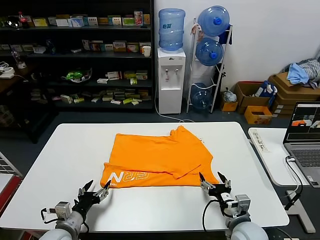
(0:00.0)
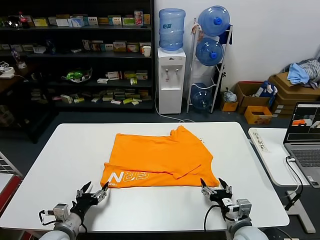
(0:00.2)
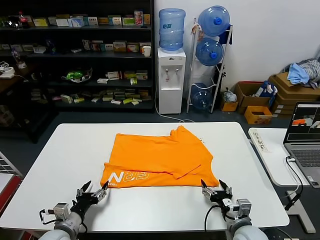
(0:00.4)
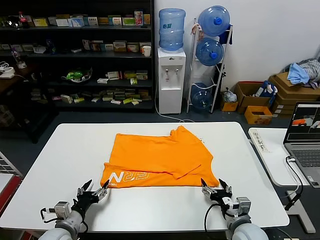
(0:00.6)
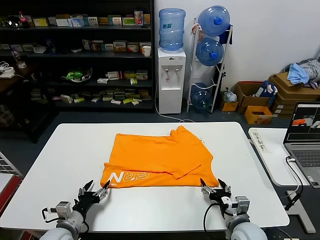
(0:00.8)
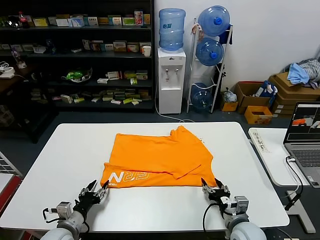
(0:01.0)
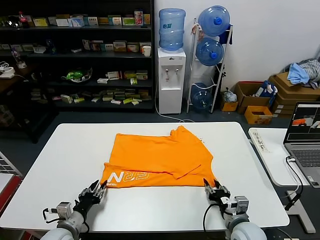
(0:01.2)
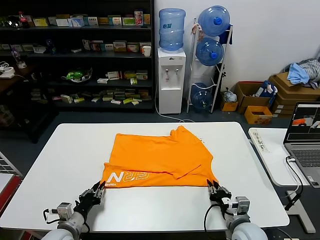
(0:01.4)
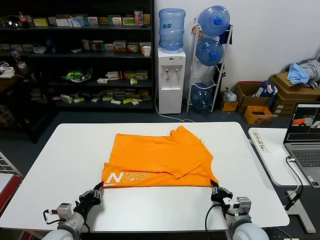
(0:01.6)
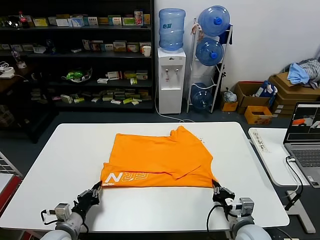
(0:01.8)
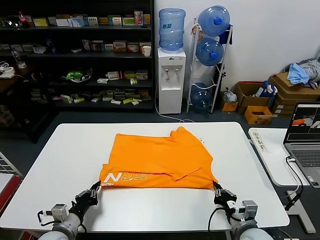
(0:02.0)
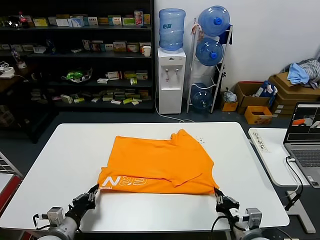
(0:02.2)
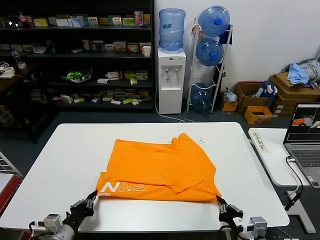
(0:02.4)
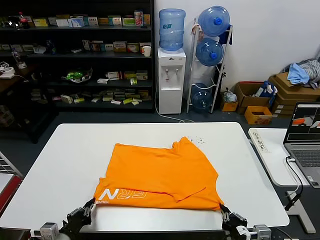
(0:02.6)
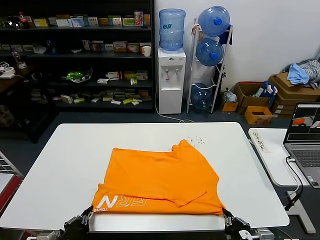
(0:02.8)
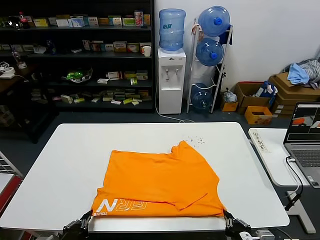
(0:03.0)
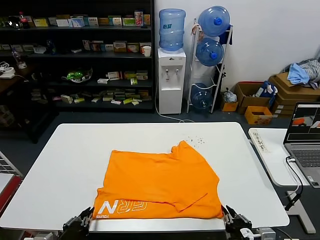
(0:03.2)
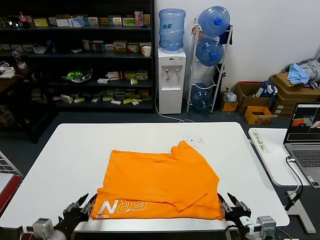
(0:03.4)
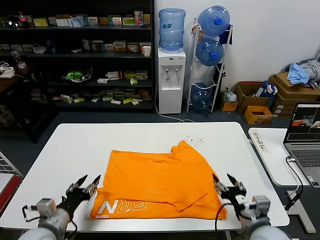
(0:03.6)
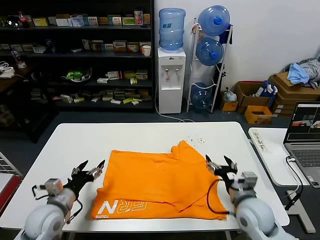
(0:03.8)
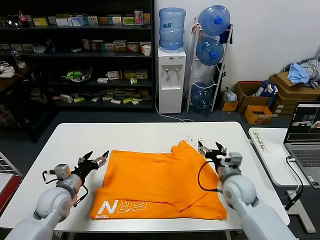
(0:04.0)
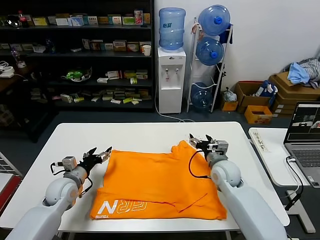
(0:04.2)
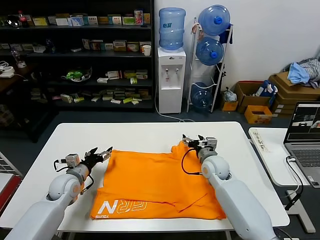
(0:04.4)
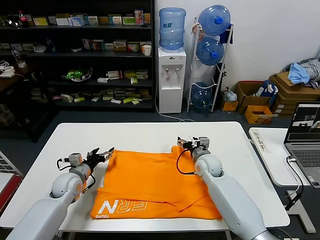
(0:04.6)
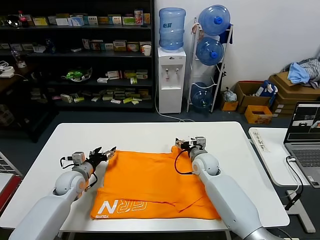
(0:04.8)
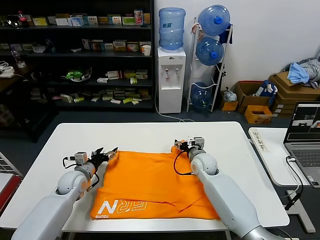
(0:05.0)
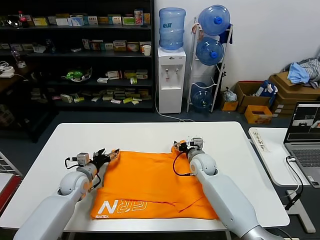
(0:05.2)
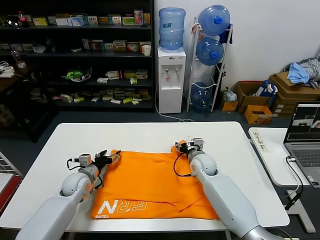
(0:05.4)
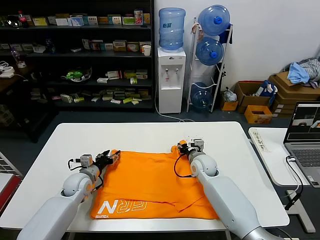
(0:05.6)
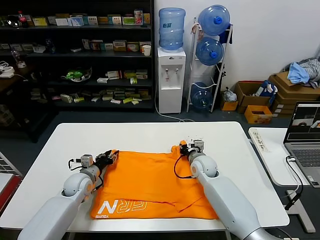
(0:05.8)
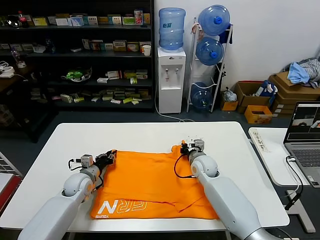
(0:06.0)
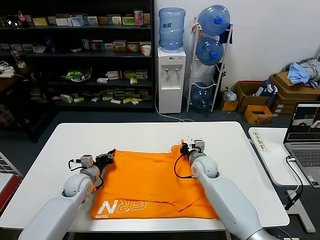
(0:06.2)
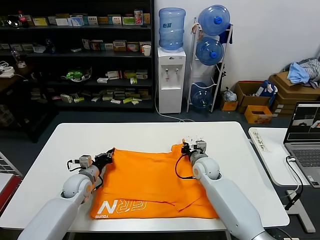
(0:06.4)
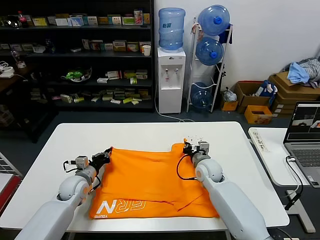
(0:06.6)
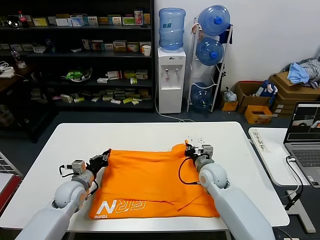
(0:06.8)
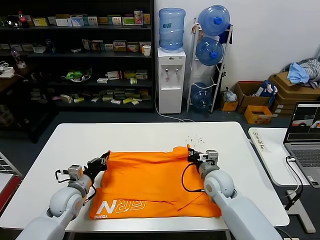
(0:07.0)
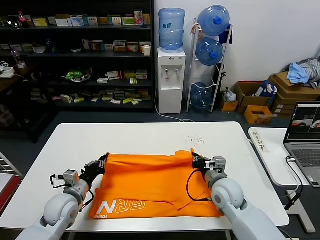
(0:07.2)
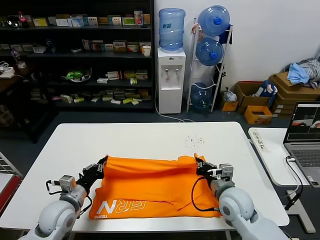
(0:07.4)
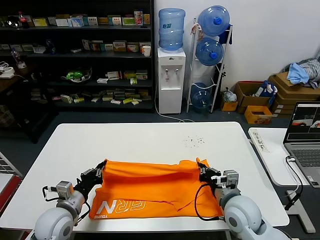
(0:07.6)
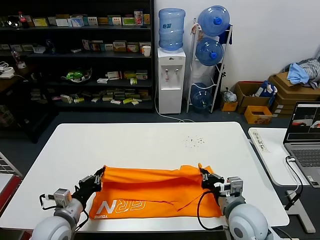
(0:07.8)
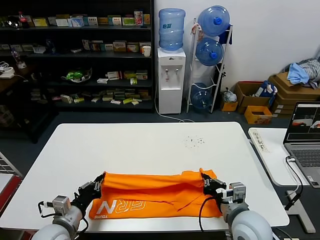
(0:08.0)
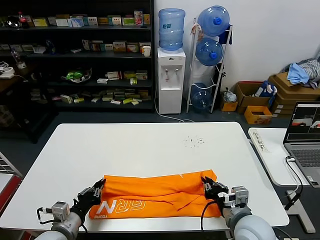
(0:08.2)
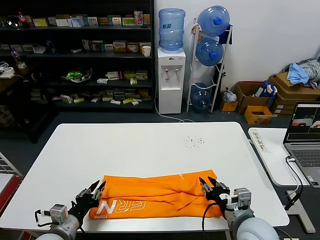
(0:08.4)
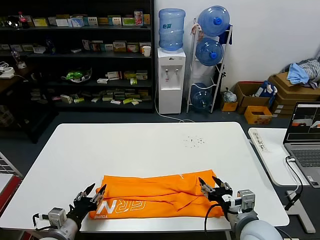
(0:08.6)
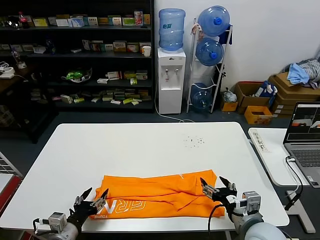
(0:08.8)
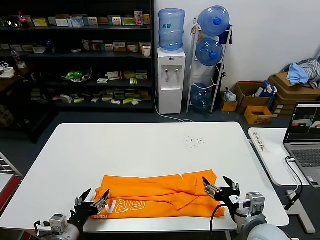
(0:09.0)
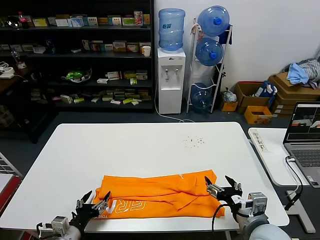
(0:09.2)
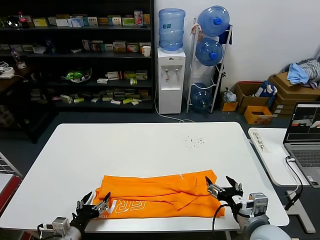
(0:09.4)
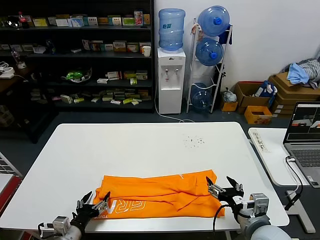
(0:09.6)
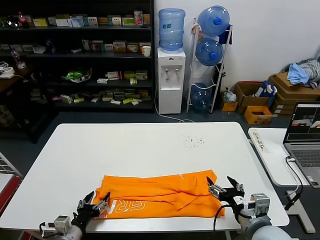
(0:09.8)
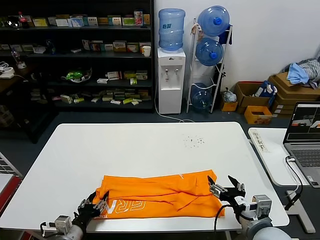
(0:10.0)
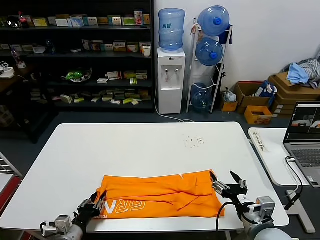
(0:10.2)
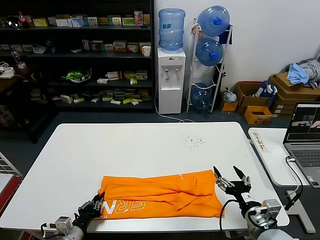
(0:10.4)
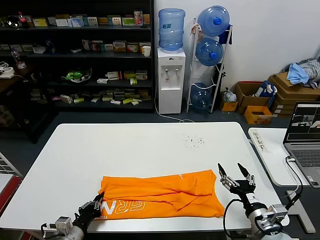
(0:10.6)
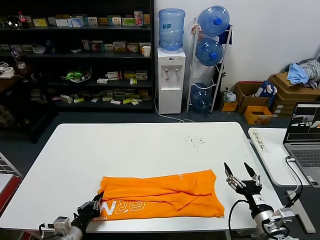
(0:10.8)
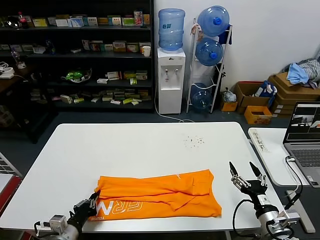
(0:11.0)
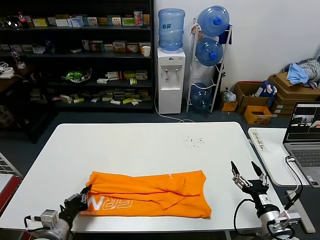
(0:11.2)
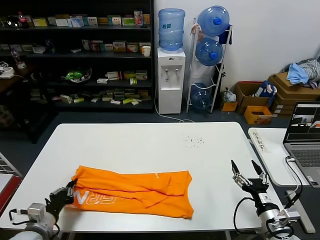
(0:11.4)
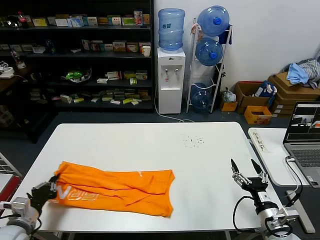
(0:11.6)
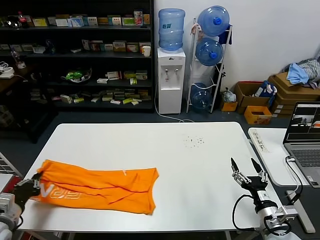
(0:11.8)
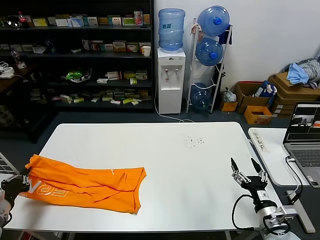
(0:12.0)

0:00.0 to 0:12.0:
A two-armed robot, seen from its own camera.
Task of the whole recording: fold and organize the clothes.
Step, 0:00.0 to 0:03.2: Drag the clothes downward with both gripper.
Step, 0:03.4 to 0:06.4: use both grippers simultaneously to clamp the upper edge of the clothing fabric.
Step, 0:06.6 to 0:08.2: use both grippers to drag the upper edge of the fabric backward and fold it over the lower edge.
Step, 0:08.6 to 0:10.8: use the left gripper to clamp the left edge of the fabric.
0:00.0 to 0:01.6: The right gripper closes its fingers; the left gripper closes its fingers.
0:01.6 to 0:03.0: The two grippers go approximately 10 cm backward and upward.
0:03.0 to 0:04.4: The grippers both shift forward by roughly 30 cm. The left gripper opens; the right gripper opens up.
0:04.4 to 0:06.0: The left gripper moves roughly 5 cm, and closes its fingers; the right gripper closes up.
0:06.0 to 0:07.6: The left gripper is displaced backward and upward by roughly 15 cm; the right gripper is displaced backward by approximately 20 cm.
0:07.6 to 0:09.0: Both grippers travel together backward, about 10 cm. The left gripper opens. Meanwhile the right gripper opens.
0:09.0 to 0:10.4: The right gripper changes place by about 5 cm. Meanwhile the left gripper closes.
0:10.4 to 0:12.0: The left gripper is displaced to the left and upward by approximately 20 cm. The right gripper changes place by about 5 cm.

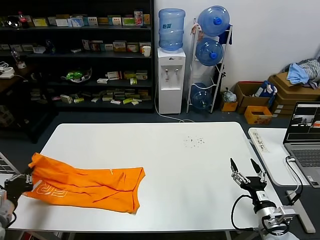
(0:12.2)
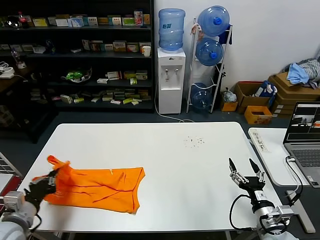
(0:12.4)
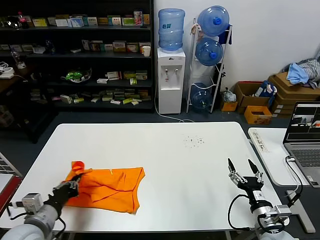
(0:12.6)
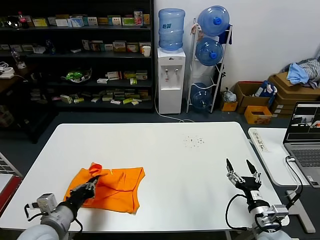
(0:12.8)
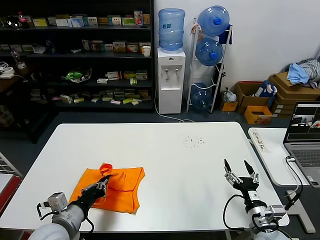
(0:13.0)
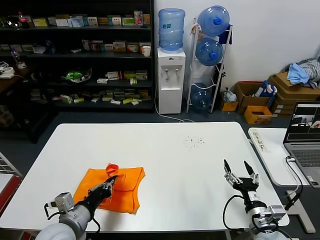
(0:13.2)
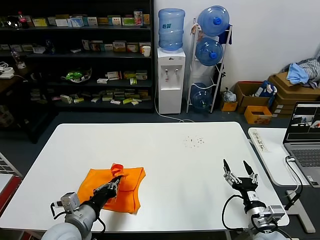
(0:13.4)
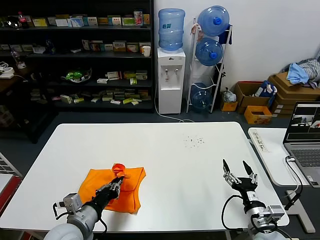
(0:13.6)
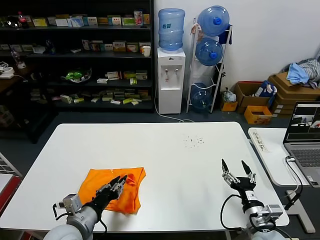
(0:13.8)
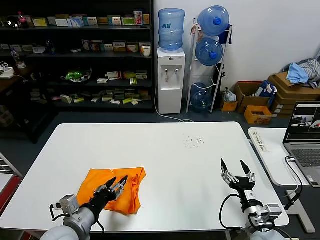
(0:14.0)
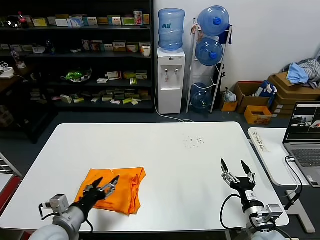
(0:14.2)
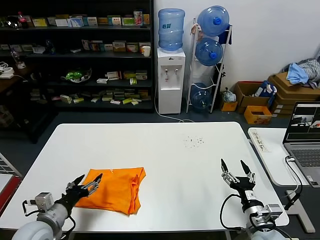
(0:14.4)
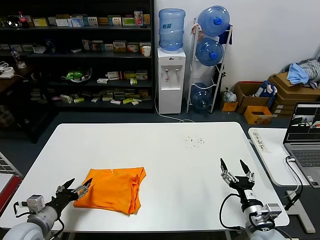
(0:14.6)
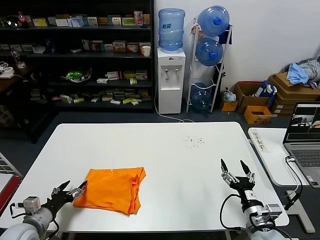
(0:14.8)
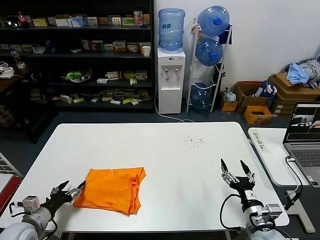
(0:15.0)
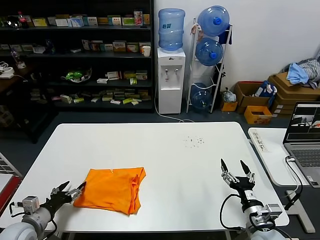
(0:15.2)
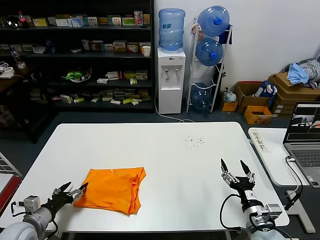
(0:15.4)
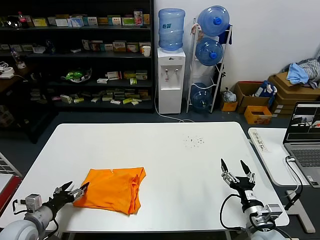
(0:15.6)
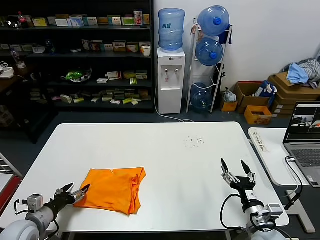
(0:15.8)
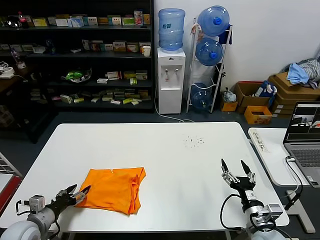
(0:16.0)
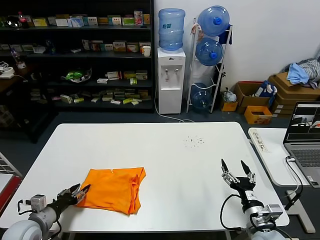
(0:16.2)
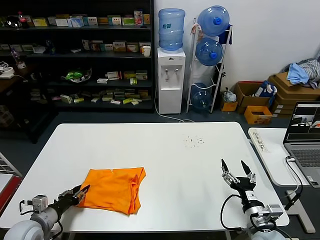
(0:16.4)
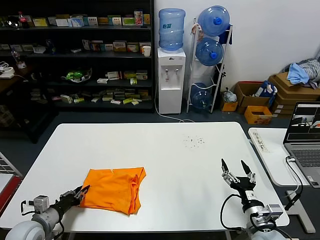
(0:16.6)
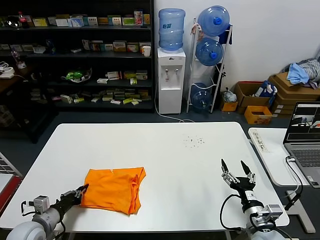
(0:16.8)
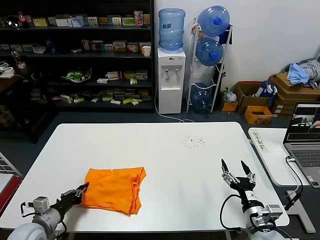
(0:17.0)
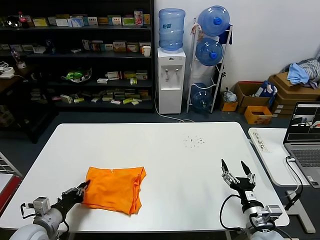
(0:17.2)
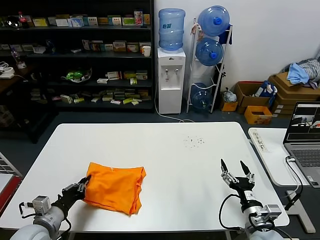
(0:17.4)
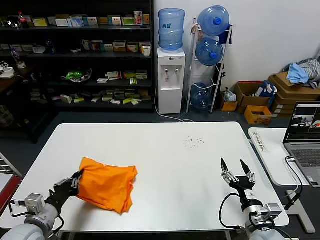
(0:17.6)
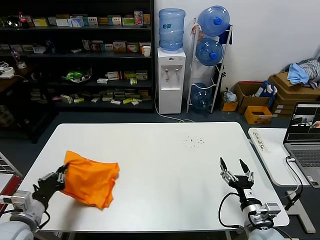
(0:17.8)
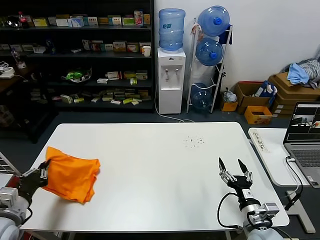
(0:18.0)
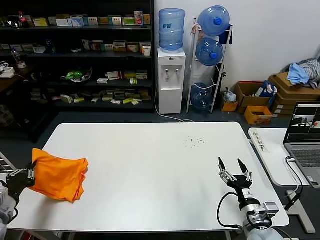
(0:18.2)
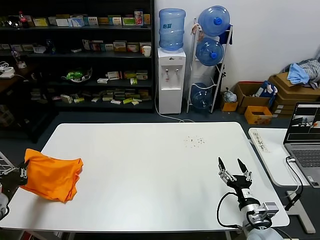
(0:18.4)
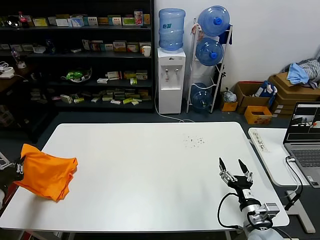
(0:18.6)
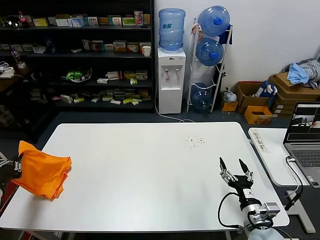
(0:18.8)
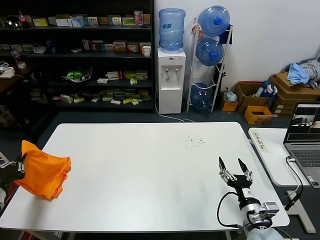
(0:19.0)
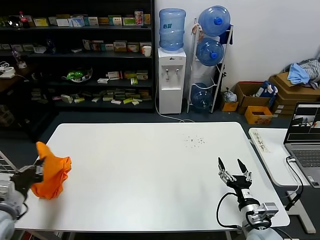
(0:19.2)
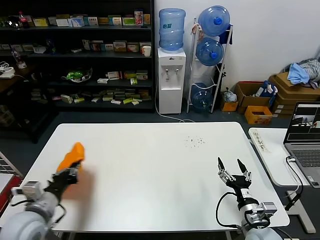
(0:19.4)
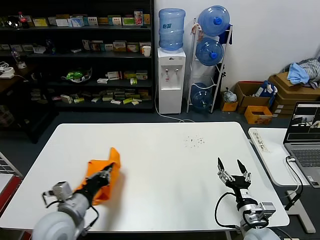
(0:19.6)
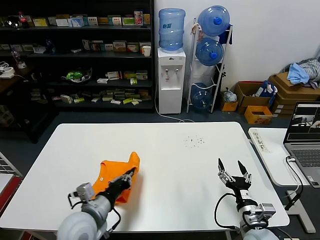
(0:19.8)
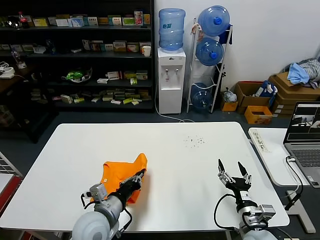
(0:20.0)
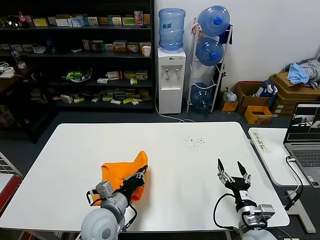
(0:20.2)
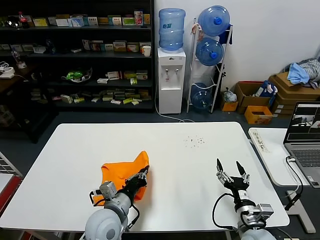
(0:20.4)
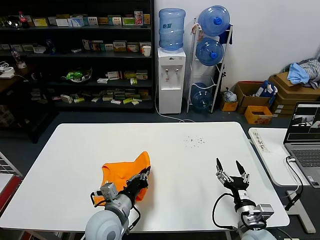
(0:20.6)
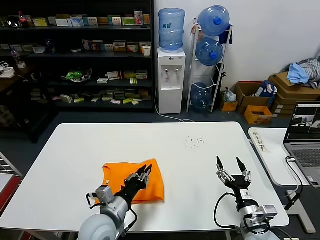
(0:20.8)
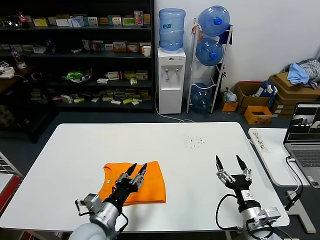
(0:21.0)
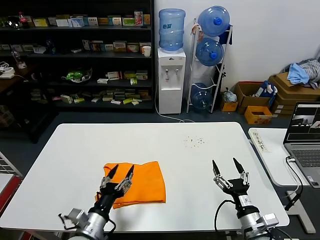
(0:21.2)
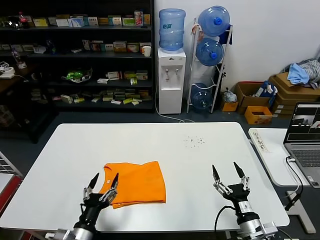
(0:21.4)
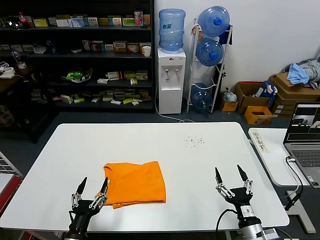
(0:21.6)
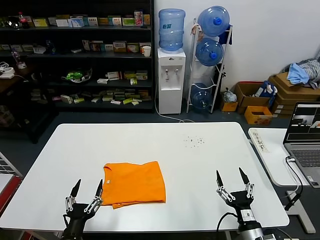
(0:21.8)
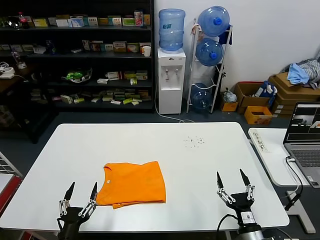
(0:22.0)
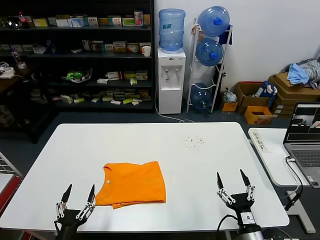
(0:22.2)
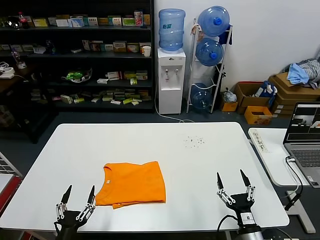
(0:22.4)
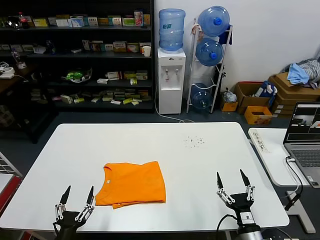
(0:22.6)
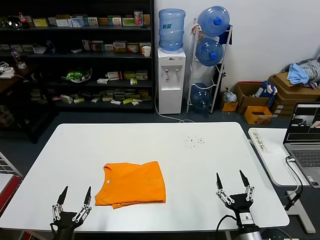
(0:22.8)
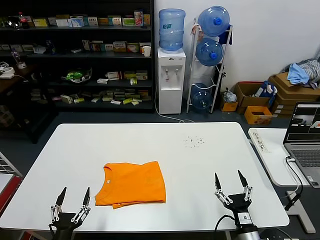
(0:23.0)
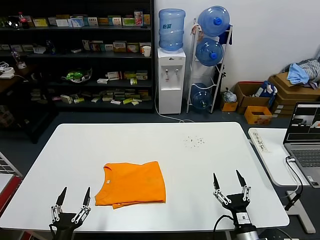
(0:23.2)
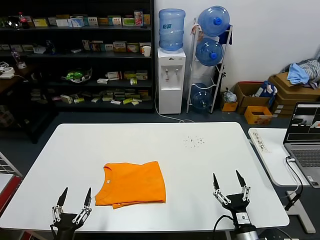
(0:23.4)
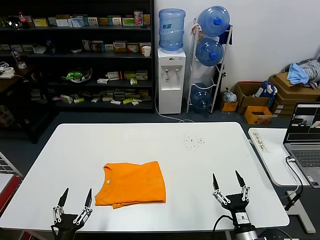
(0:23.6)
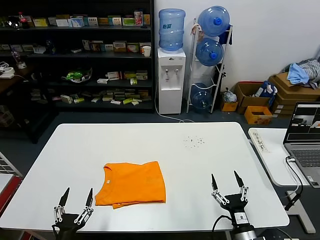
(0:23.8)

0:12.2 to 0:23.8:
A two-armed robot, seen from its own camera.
Task of the whole recording: fold and organize the clothes.
Step, 0:12.2 to 0:14.0: use the left gripper to drag the left edge of the fabric to the left and folds it over the right edge.
Step, 0:14.2 to 0:21.0: Flip the folded clothes over with left gripper.
0:12.2 to 0:13.6: The left gripper moves to the right, some 25 cm.
0:13.6 to 0:15.0: The left gripper shifts some 15 cm to the left, and opens its fingers.
0:15.0 to 0:16.6: The left gripper closes up.
0:16.6 to 0:18.0: The left gripper moves upward, about 10 cm.
0:18.0 to 0:19.4: The left gripper travels to the left and back again, some 10 cm each way.
0:19.4 to 0:21.0: The left gripper shifts some 20 cm to the right, and opens.
0:21.0 to 0:22.4: The right gripper goes approximately 5 cm downward and backward, while the left gripper is displaced backward, to the left and downward by approximately 20 cm, and opens its fingers.
0:22.4 to 0:23.8: The grippers stay close to where they were, moving slightly.
